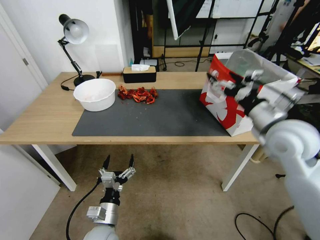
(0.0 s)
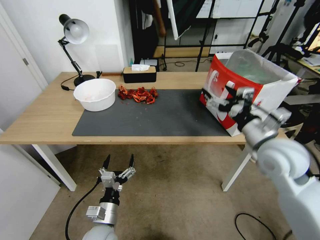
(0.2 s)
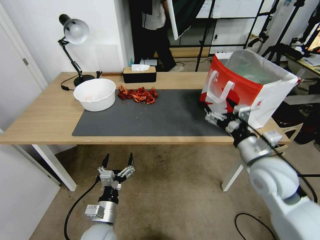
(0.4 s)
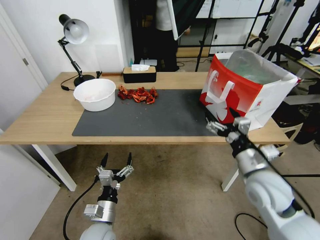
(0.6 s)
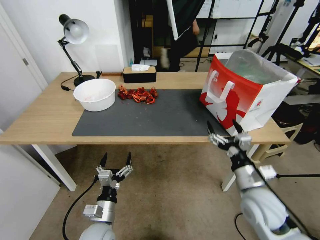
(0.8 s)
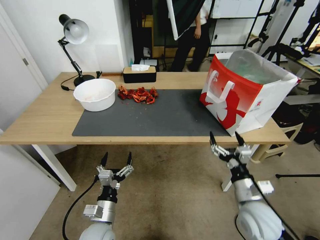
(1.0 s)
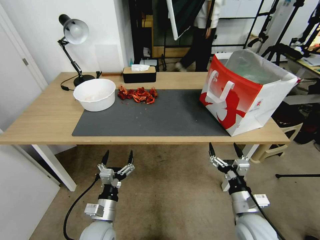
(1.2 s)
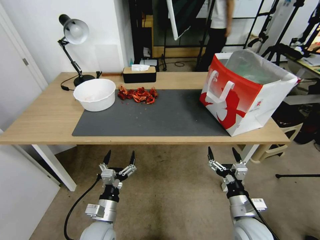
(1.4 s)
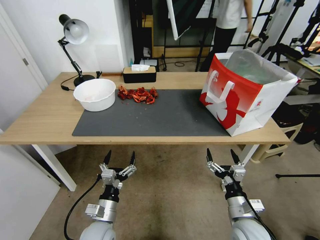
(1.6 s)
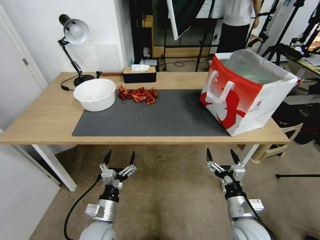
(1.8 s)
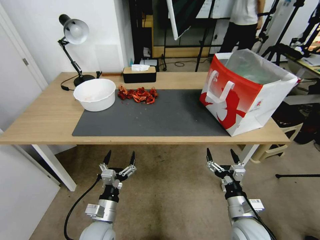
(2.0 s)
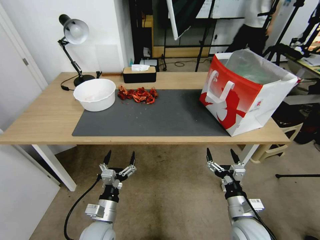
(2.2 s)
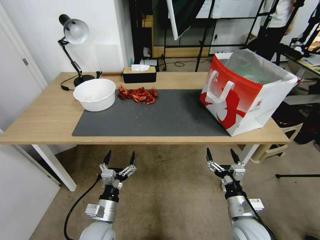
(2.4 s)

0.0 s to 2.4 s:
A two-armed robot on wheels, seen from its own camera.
Task of the whole recording: Close the takeout container lid, then place the container into the takeout bag.
0.0 to 1.2 s: The right gripper heads downward and backward, covering about 30 cm.
1.2 to 2.4 s: The grippers make only small movements.
